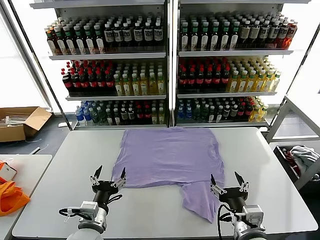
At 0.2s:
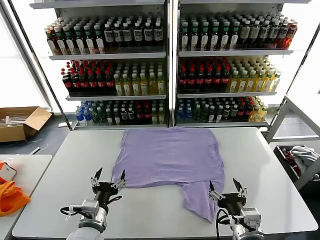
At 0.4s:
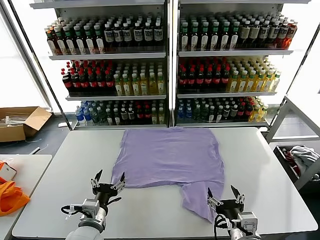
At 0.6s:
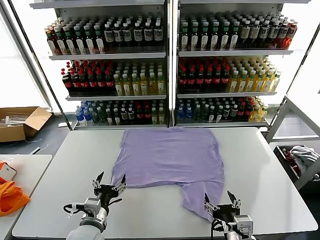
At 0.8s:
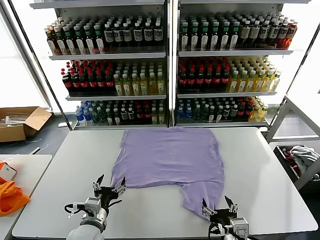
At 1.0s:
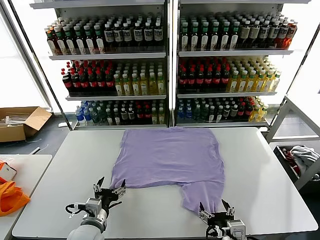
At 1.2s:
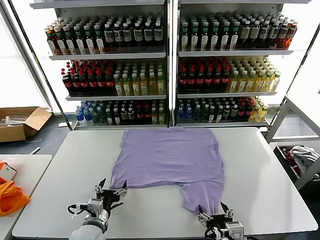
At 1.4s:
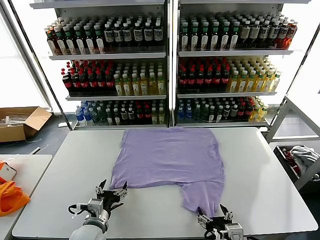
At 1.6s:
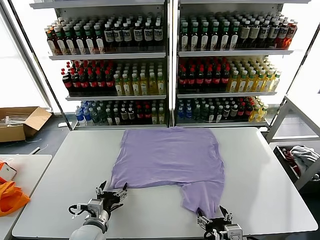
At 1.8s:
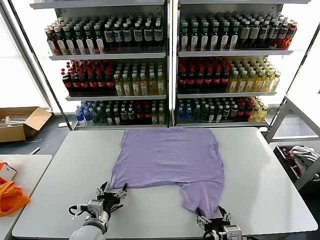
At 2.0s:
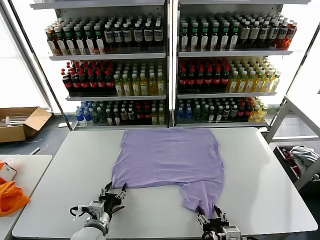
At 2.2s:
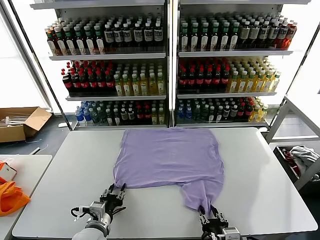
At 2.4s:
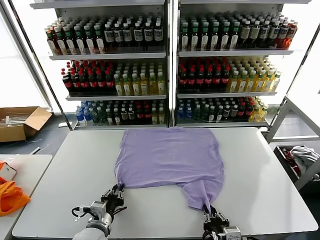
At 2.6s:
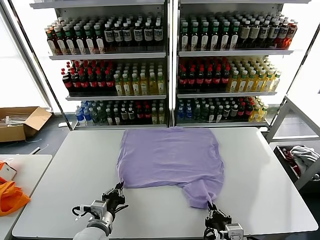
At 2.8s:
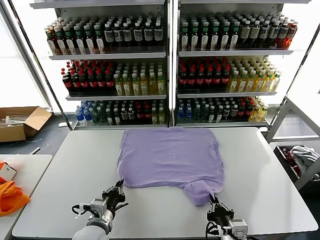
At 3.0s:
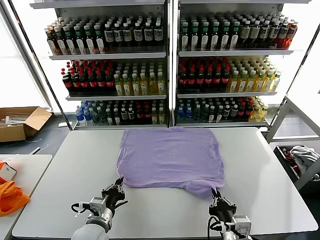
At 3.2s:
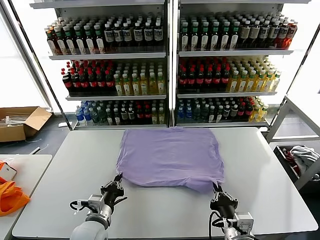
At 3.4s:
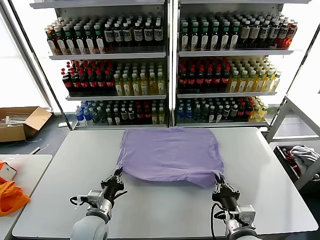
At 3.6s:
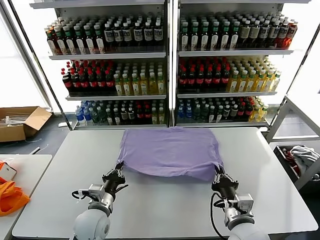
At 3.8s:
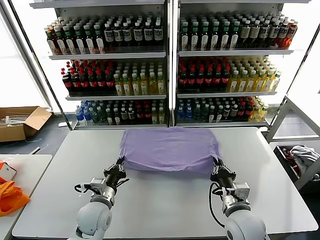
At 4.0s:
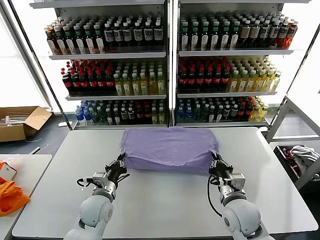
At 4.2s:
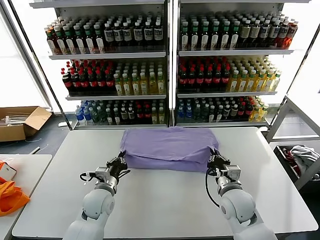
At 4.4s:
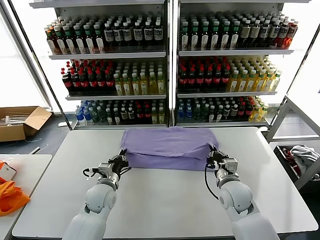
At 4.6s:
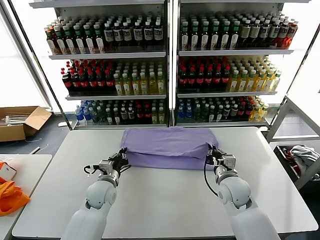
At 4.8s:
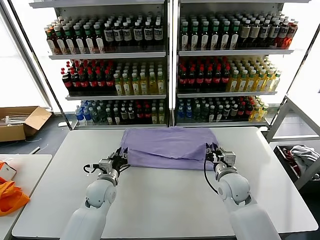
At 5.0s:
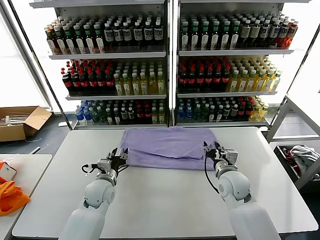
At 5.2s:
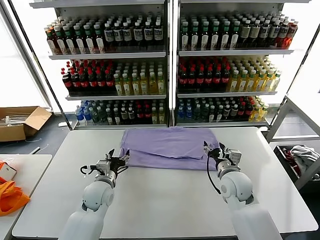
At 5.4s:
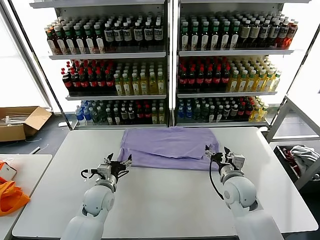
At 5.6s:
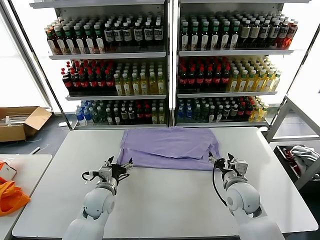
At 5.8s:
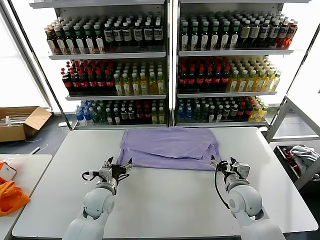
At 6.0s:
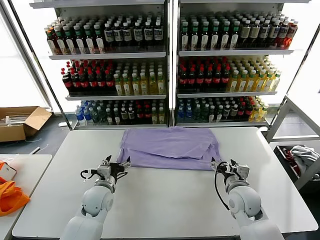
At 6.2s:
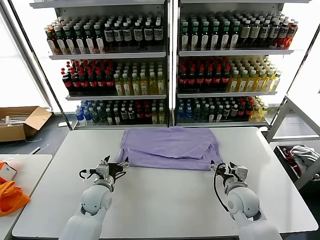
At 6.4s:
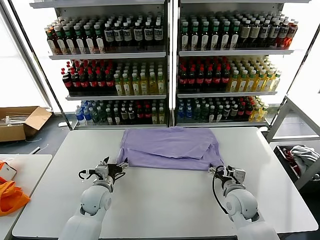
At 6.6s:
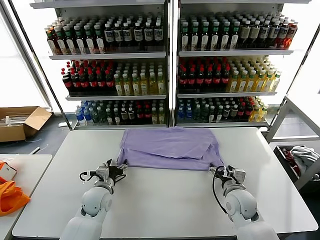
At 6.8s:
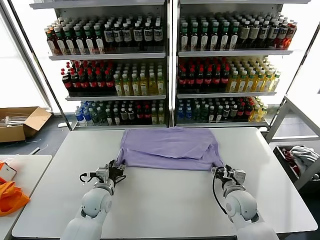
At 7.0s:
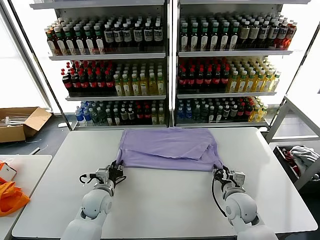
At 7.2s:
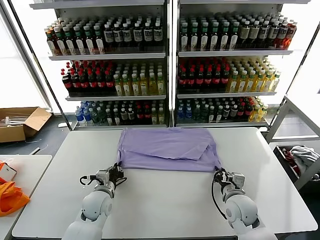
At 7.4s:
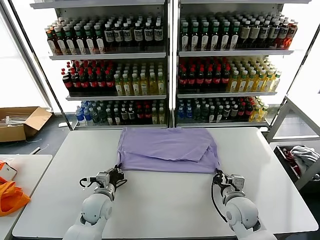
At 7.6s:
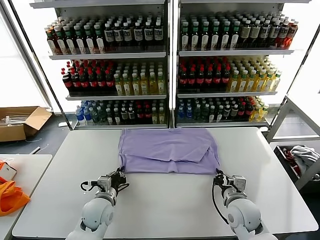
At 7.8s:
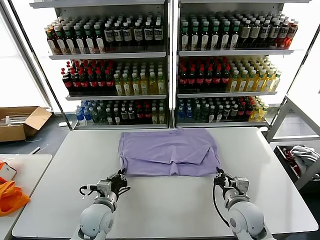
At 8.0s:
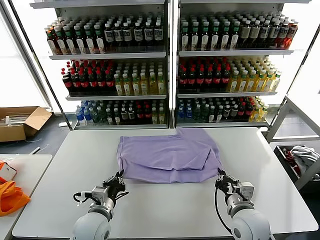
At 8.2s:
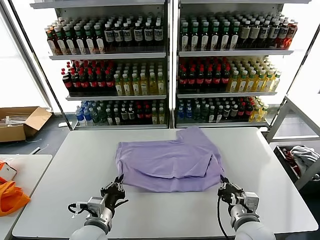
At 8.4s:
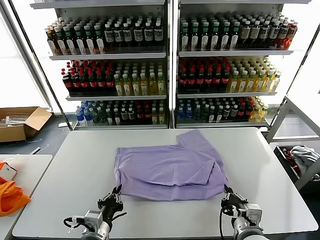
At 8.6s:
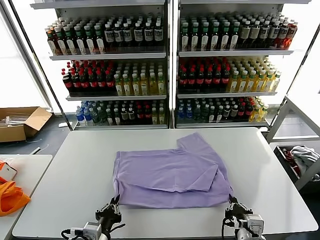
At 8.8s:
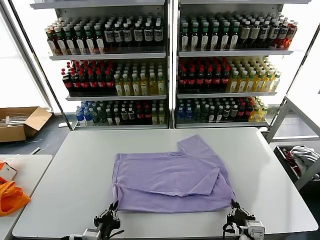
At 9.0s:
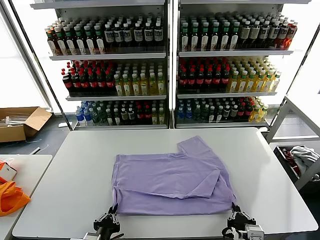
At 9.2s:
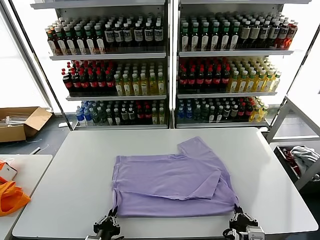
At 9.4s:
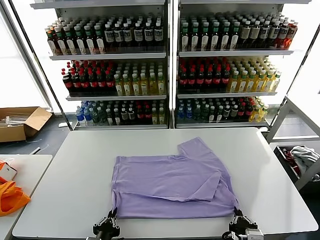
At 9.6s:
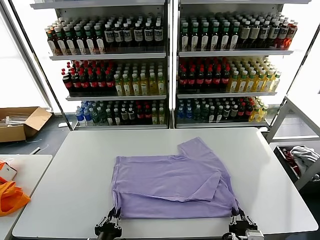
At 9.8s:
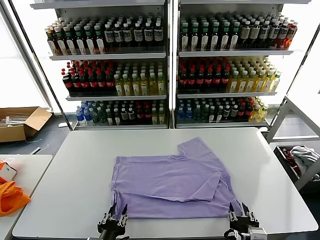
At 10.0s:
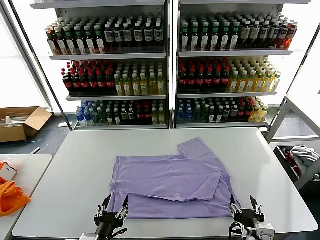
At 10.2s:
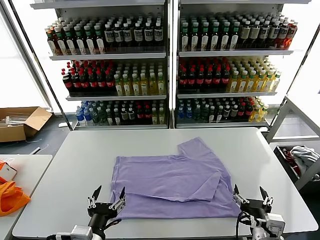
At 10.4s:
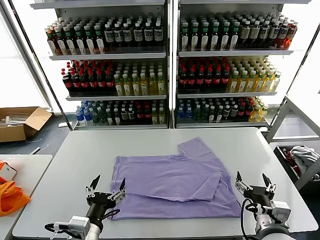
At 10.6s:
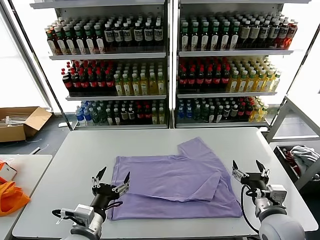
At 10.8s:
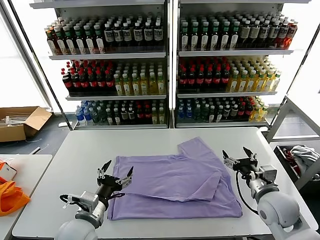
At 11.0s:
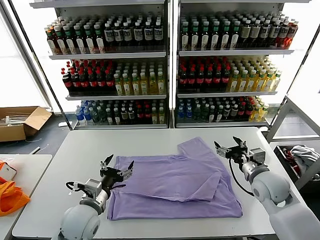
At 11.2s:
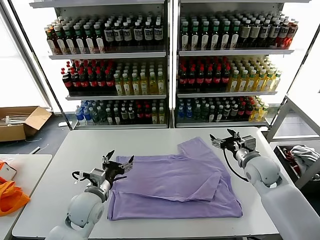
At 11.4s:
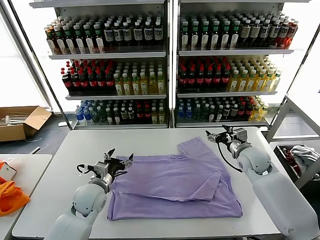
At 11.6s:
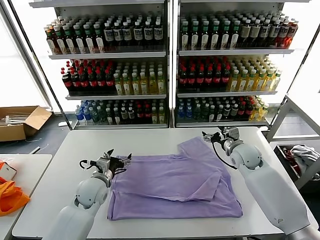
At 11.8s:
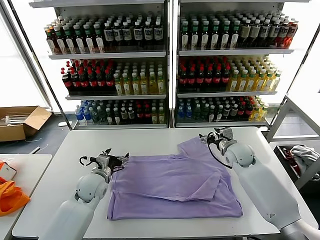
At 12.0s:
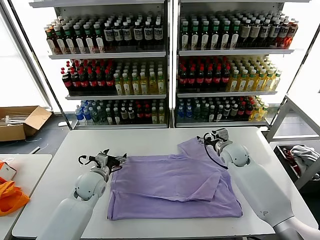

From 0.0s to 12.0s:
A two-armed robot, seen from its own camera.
Task of the whole recording: fold and organize the clothes.
Step, from 0.0s to 2.6s: use both grippers simultaneously to clamp the lower edge of the clothing fabric.
Step, from 2.8s to 5.2s: use both grippers to drag the lower edge of the fabric forward and fold it over the upper edge.
Step, from 5.4s to 10.0s: Drag the clothes downward with both gripper.
From 1.6s to 3.0s: The left gripper closes its fingers. The right gripper closes its fingers.
From 3.0s to 4.4s: The two grippers go some 15 cm forward.
From 4.4s to 6.0s: The left gripper opens. Meanwhile the right gripper opens.
From 6.0s to 7.6s: The left gripper ends up approximately 5 cm from where it was, and closes up, while the right gripper closes its fingers.
From 7.6s to 9.0s: Both grippers move backward, about 15 cm.
From 9.0s to 10.4s: The left gripper shifts roughly 5 cm upward, and opens its fingers, while the right gripper is displaced forward and to the right by roughly 10 cm, and opens its fingers.
From 10.4s to 12.0s: The grippers both shift forward by about 25 cm.

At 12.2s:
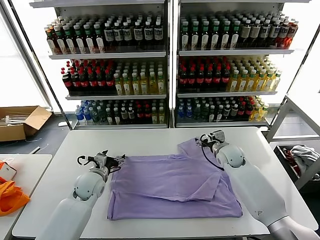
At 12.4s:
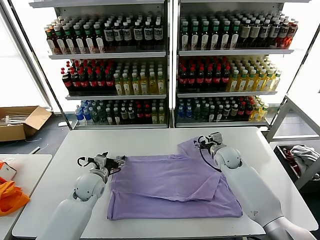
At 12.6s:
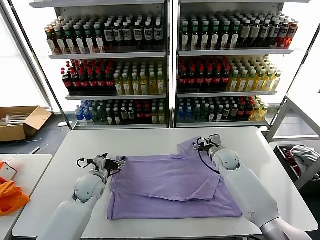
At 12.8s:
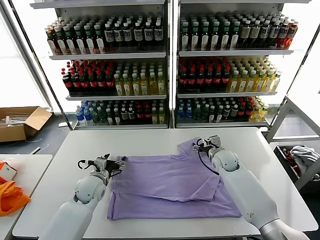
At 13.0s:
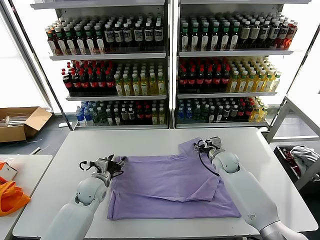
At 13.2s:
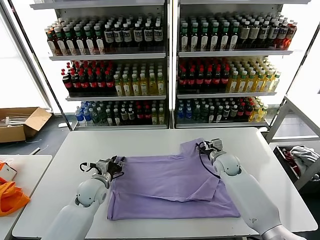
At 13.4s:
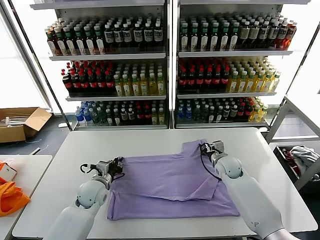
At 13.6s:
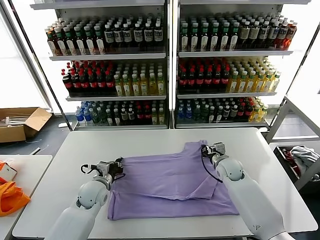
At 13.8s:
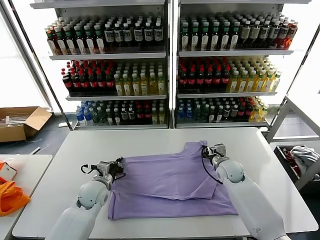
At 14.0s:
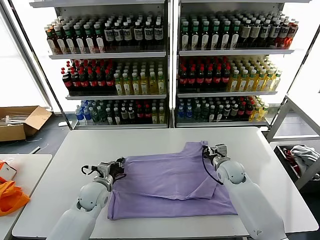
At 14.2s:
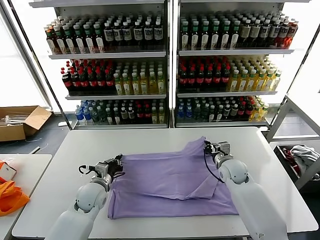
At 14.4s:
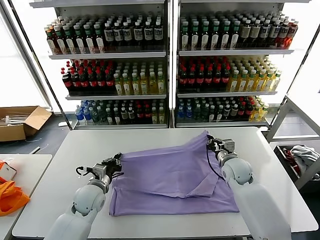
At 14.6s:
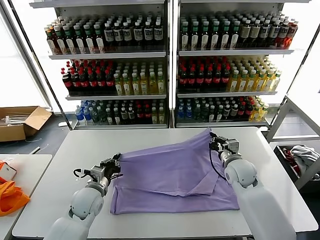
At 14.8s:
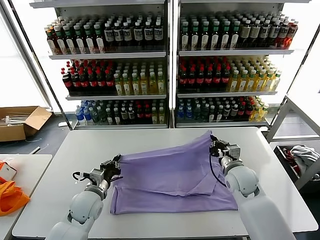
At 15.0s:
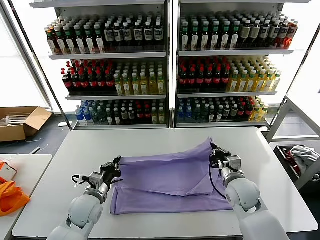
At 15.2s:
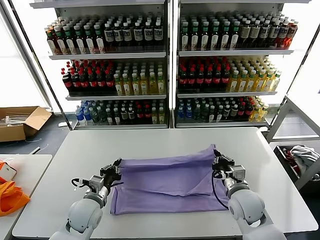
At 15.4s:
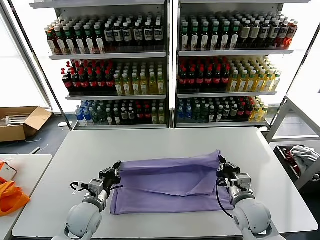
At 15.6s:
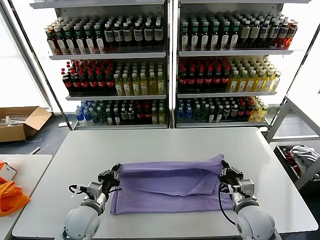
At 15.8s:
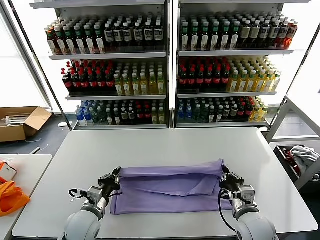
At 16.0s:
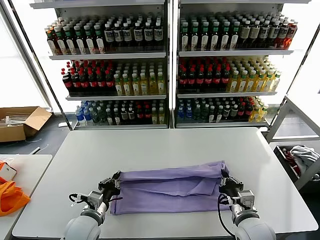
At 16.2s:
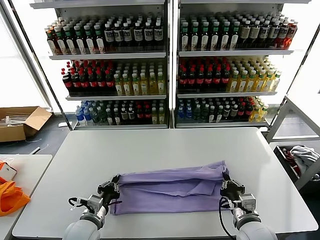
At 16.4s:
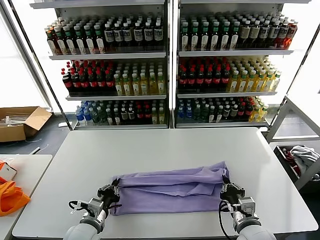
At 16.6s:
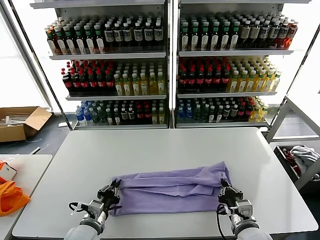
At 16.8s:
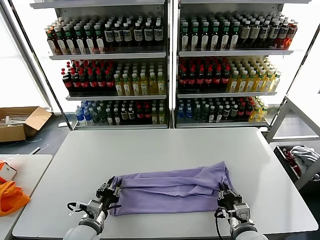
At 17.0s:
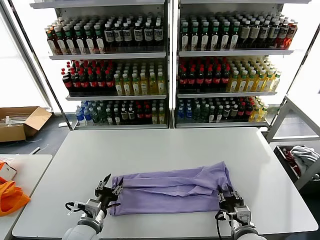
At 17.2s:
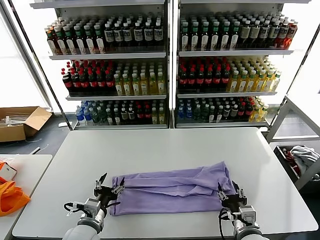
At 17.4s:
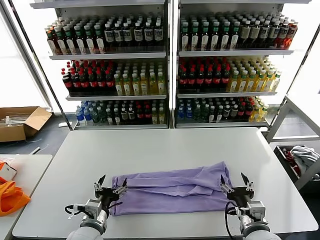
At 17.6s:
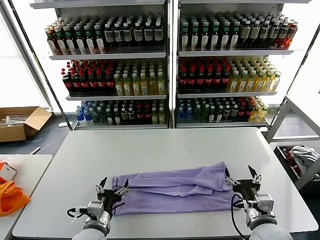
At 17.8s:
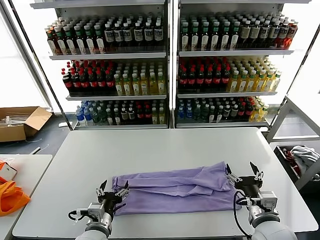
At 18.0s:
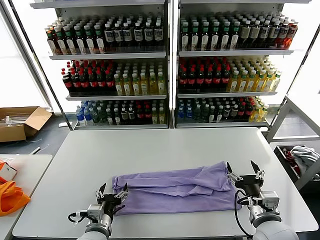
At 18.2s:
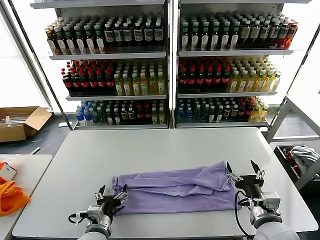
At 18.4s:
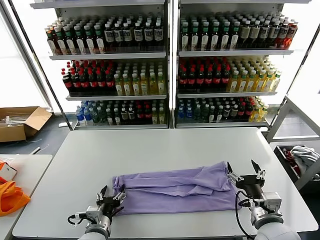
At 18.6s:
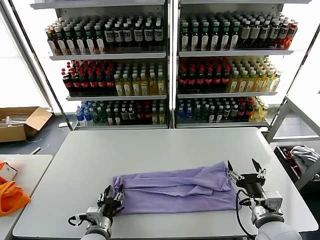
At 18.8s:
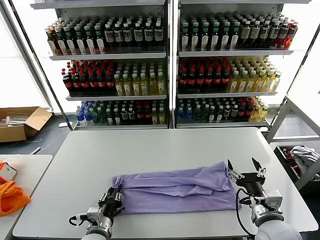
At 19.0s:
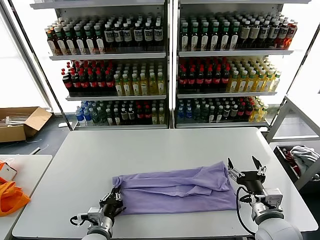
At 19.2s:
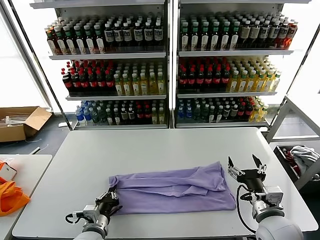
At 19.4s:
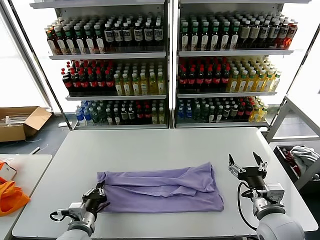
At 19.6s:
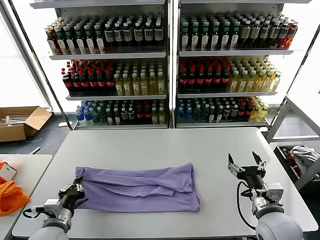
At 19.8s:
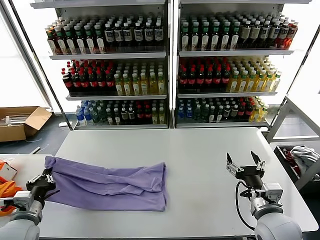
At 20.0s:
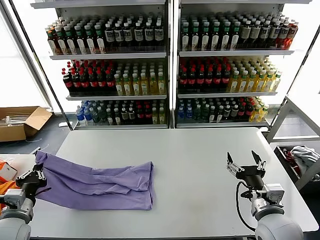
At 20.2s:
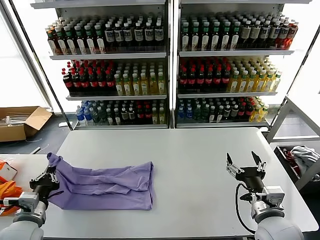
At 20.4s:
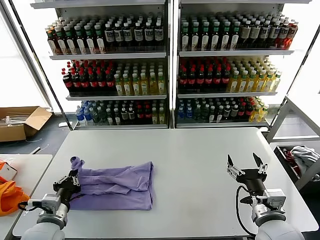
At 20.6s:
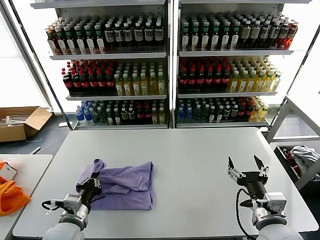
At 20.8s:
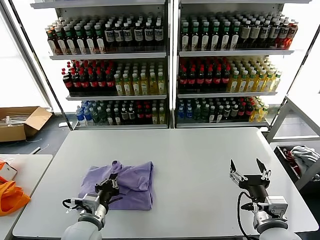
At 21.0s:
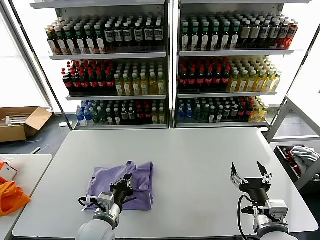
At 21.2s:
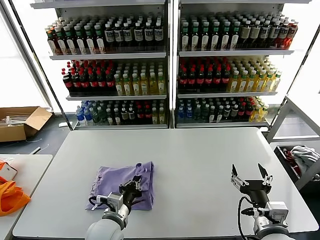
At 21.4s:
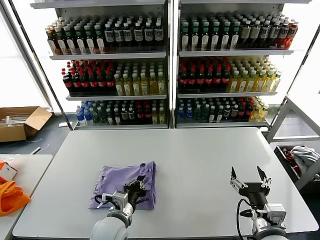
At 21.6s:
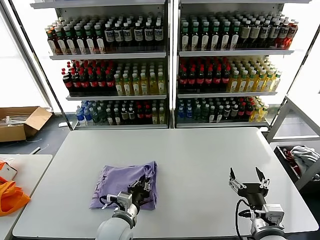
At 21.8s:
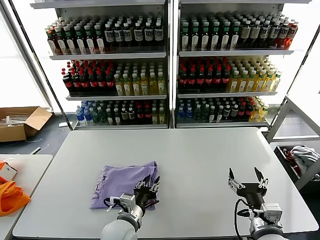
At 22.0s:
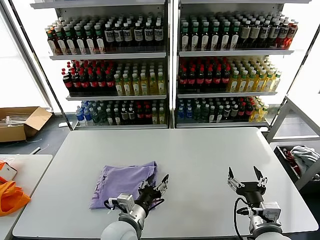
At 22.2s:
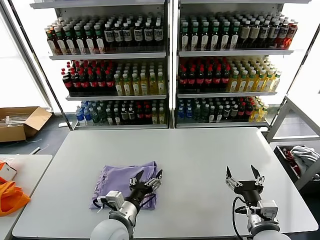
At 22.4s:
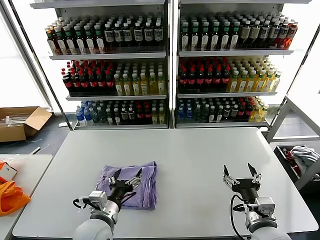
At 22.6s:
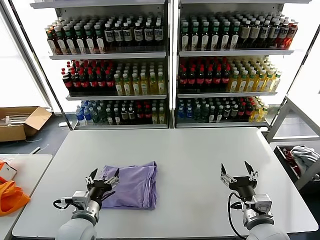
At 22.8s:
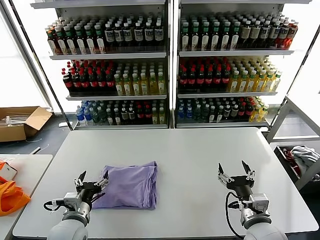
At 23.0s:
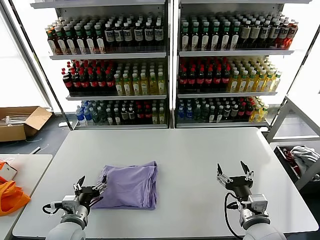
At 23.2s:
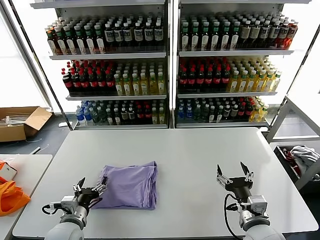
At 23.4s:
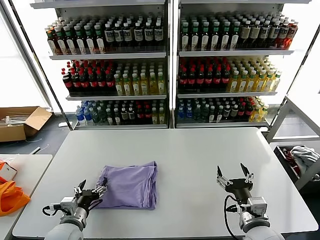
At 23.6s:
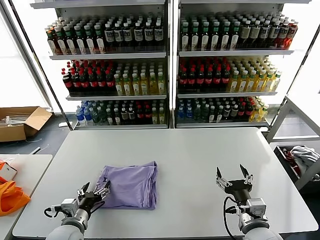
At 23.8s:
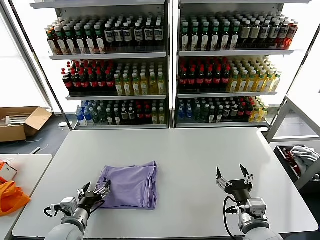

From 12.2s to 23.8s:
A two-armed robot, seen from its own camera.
Task of the whole recording: fold and organize the clothes.
Step, from 14.2s to 17.2s: use both grippers to drag the upper edge of the fabric backward and fold it over the lower edge.
Step, from 17.4s to 19.2s: use the left gripper to clamp the left edge of the fabric.
Step, from 19.4s to 22.0s: use the left gripper to drag the left edge of the fabric to the left and folds it over the right edge.
From 12.2s to 13.6s: The right gripper changes place by some 5 cm, and closes its fingers; the left gripper closes up.
From 13.6s to 15.0s: The right gripper is displaced backward by some 15 cm. Meanwhile the left gripper heads backward, covering some 5 cm.
From 15.0s to 16.6s: Both grippers move backward, some 10 cm.
From 16.6s to 18.0s: The right gripper shifts roughly 5 cm upward, and opens. The left gripper opens its fingers.
From 18.0s to 19.4s: The left gripper is displaced to the left by some 5 cm, and closes.
From 19.4s to 21.0s: The left gripper reaches roughly 15 cm to the left, then returns.
From 21.0s to 22.4s: The left gripper opens up.
From 22.4s to 23.8s: The left gripper travels to the left and downward by roughly 10 cm.
